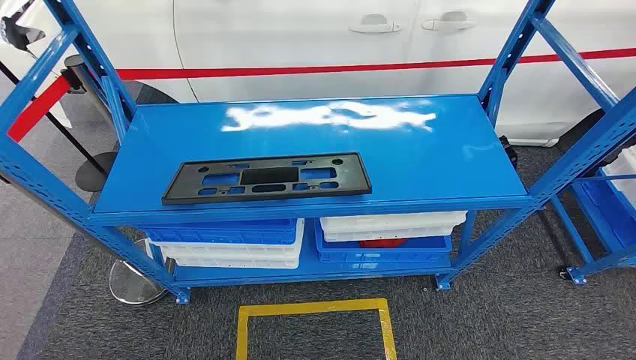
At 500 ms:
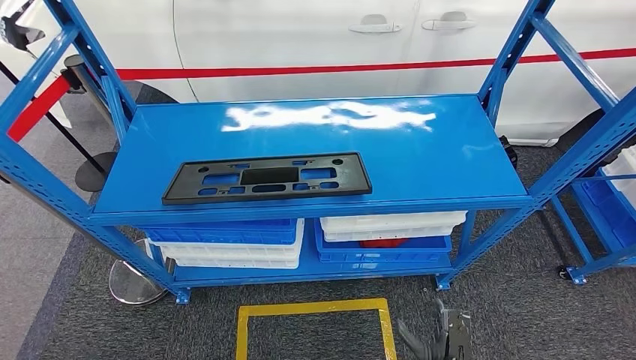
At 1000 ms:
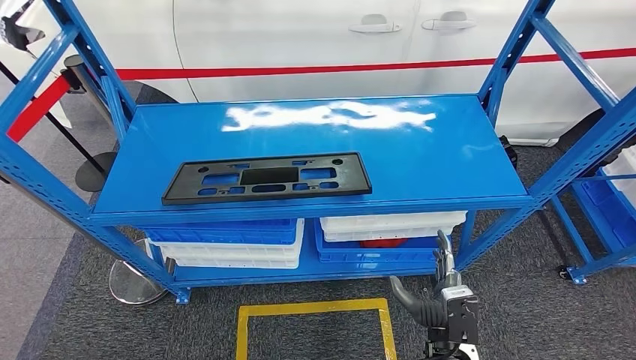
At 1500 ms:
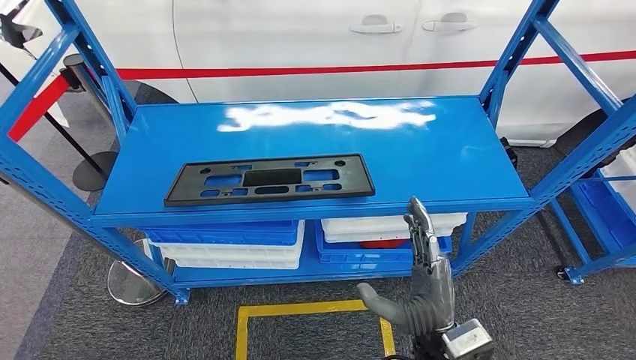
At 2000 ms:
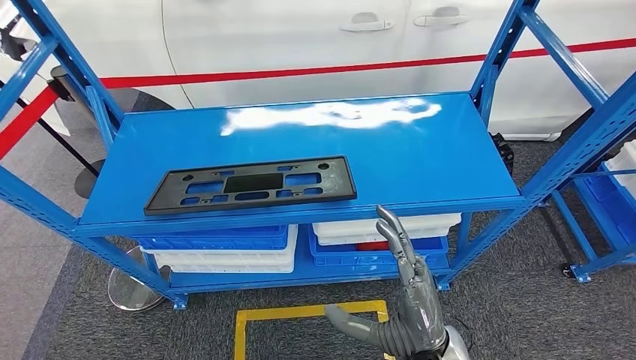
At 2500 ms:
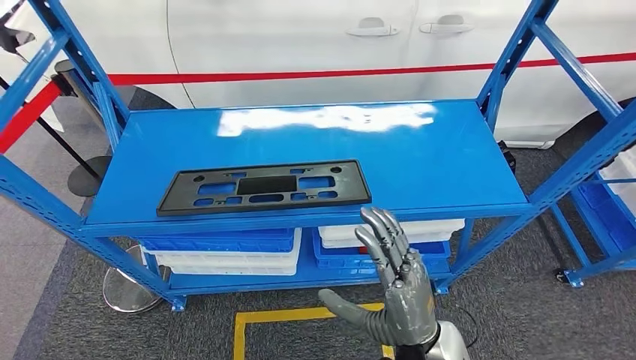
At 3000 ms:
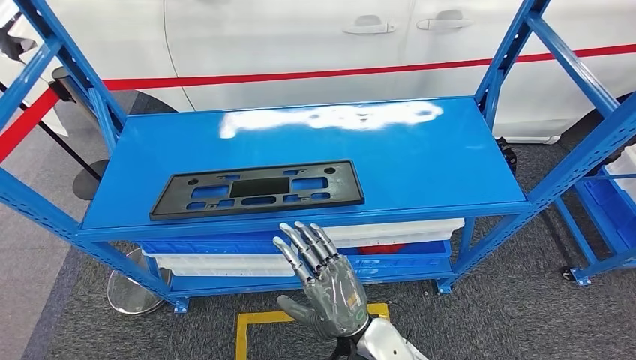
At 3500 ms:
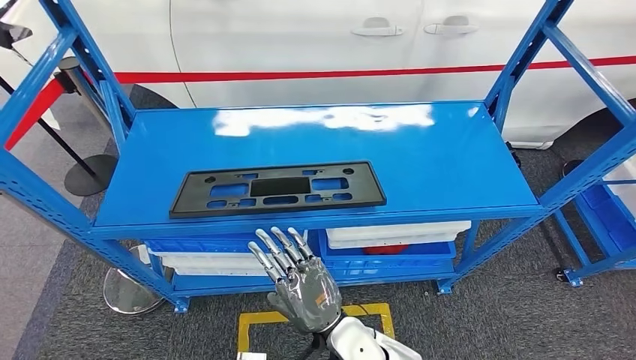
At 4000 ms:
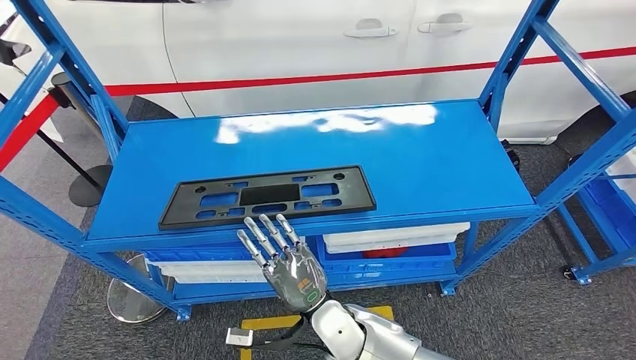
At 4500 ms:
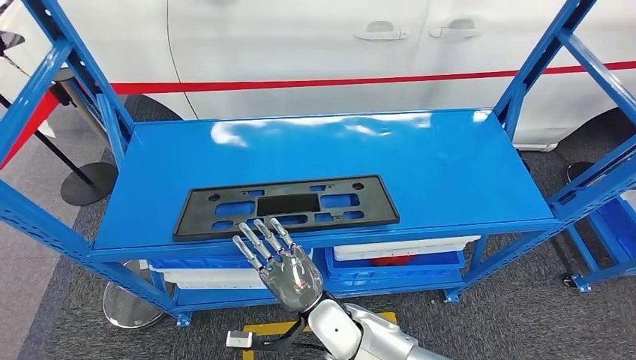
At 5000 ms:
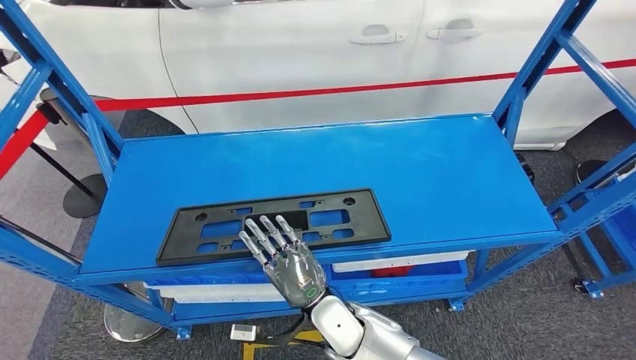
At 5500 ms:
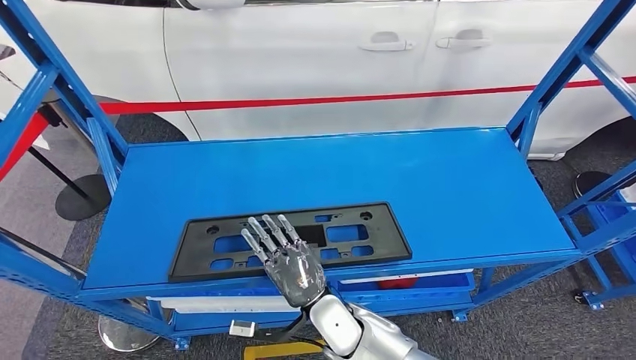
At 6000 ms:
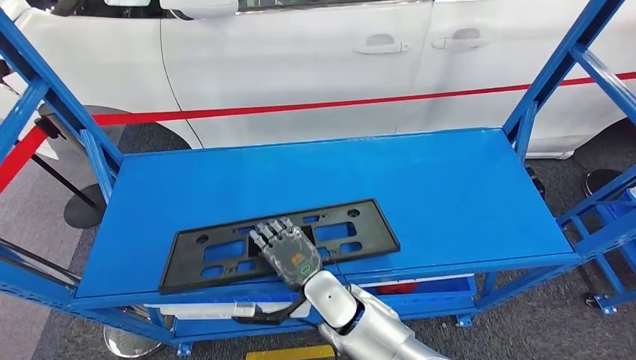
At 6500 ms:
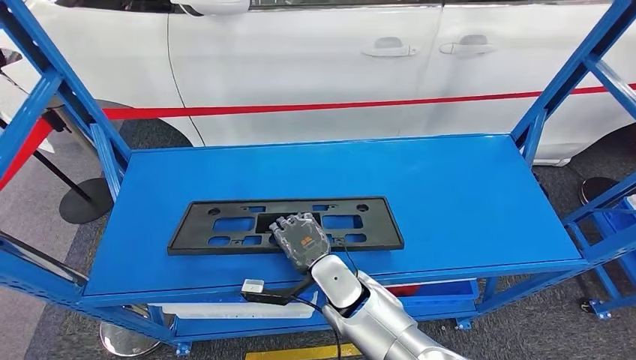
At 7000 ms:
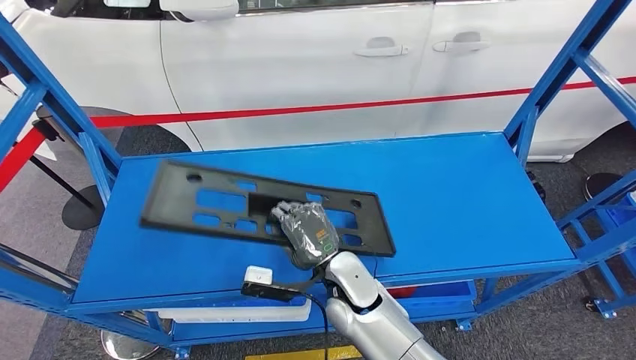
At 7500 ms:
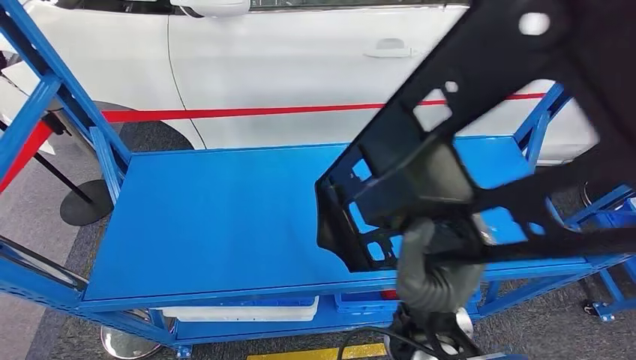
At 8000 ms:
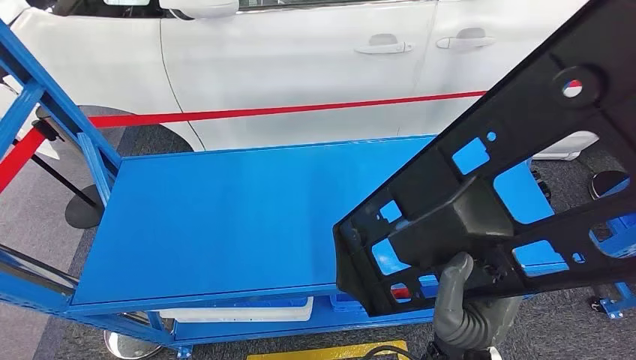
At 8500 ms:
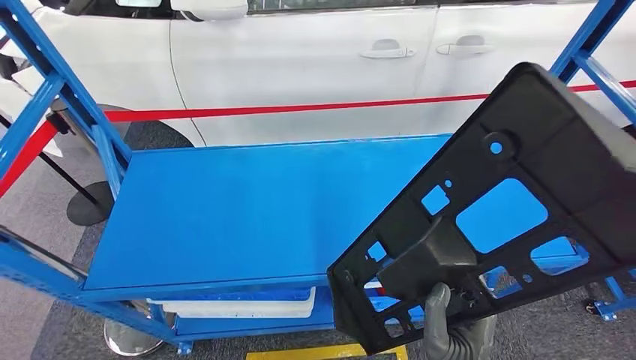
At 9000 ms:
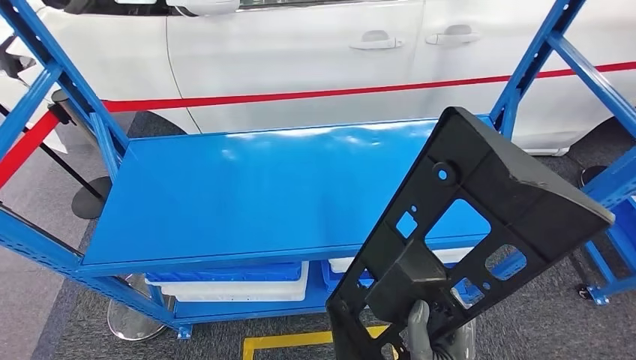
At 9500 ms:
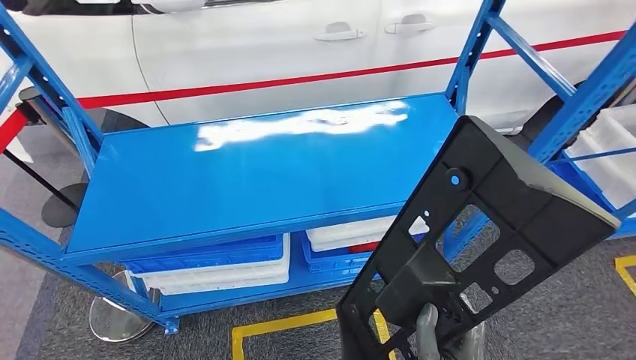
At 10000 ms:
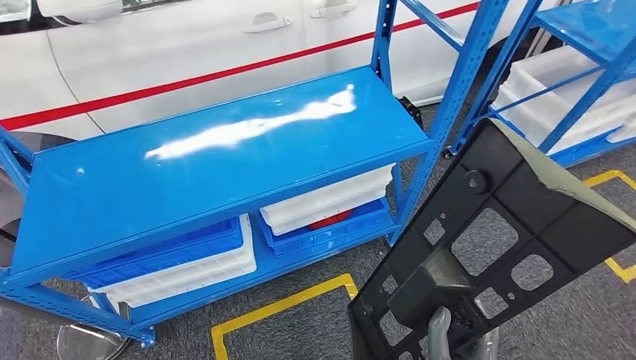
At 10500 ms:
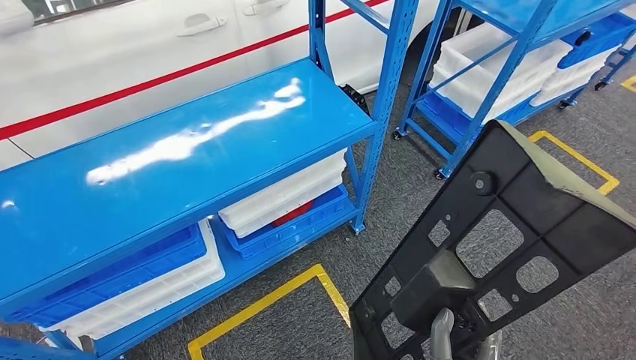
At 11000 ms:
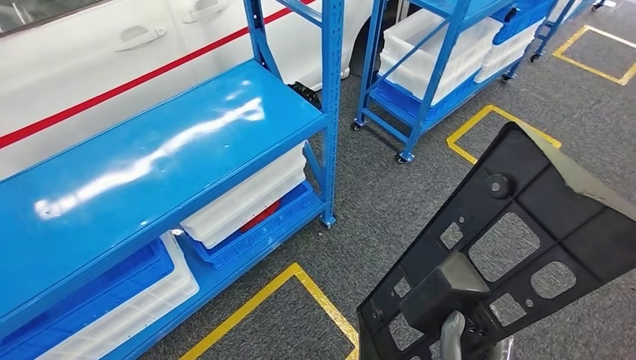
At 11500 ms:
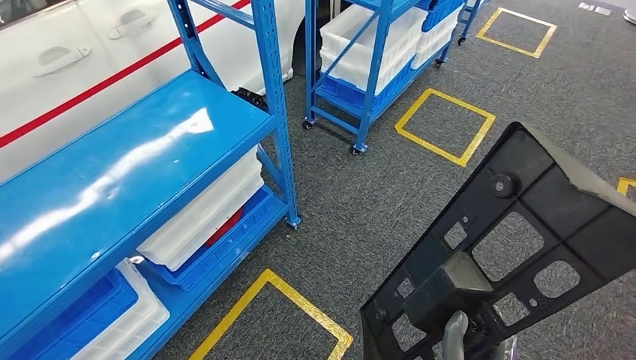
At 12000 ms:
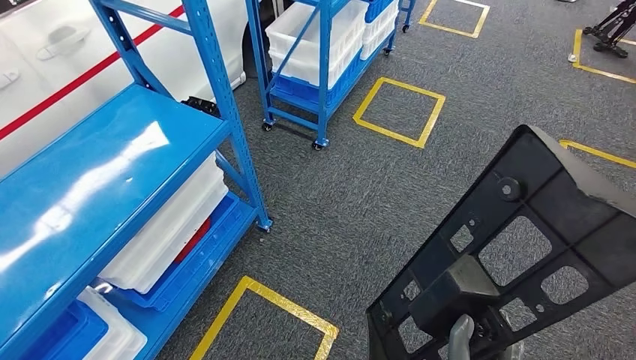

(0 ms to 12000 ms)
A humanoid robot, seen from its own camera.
Step, 0 ms - 7500 ms: Pick up the large material from the shelf.

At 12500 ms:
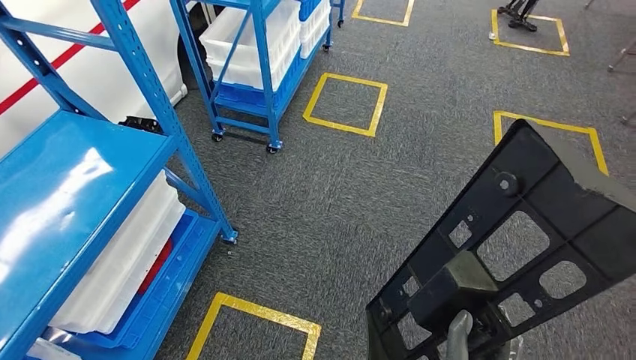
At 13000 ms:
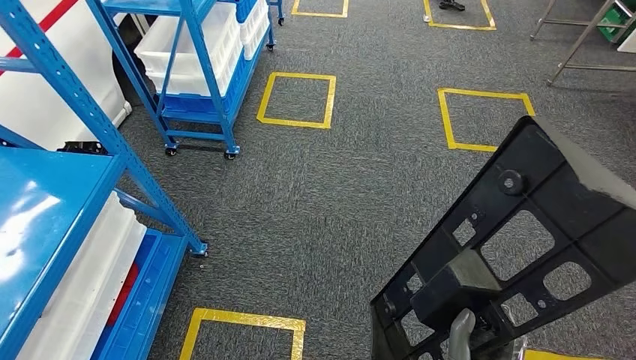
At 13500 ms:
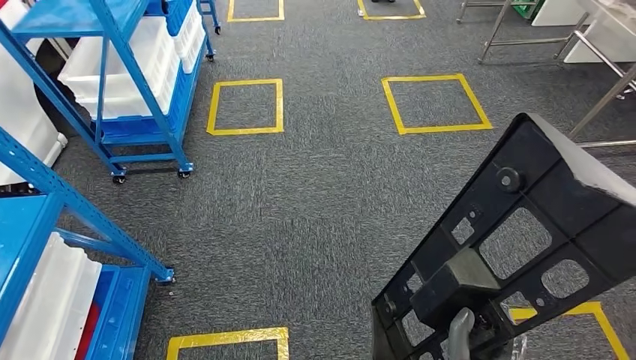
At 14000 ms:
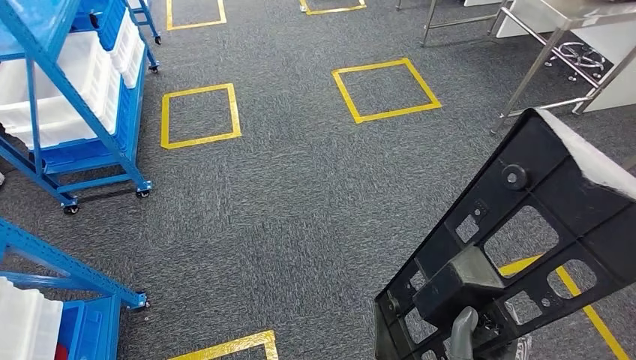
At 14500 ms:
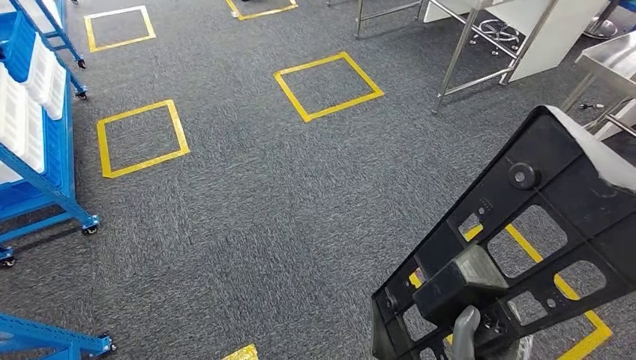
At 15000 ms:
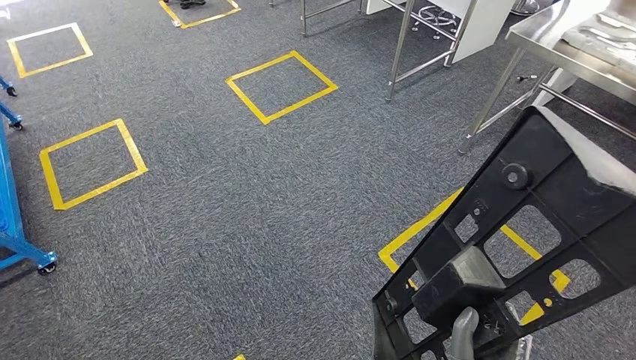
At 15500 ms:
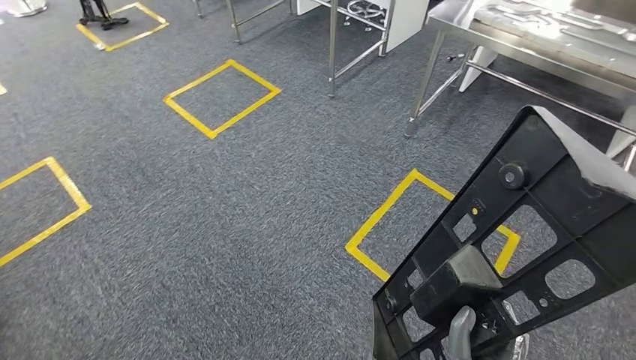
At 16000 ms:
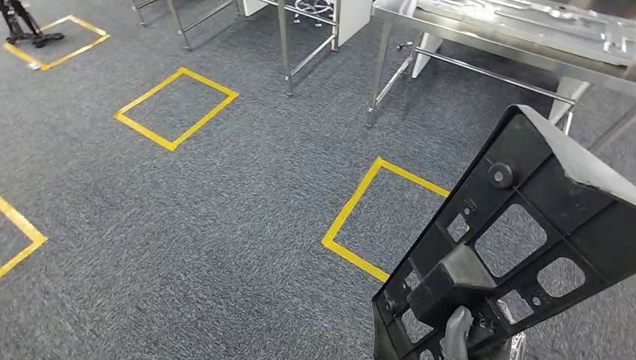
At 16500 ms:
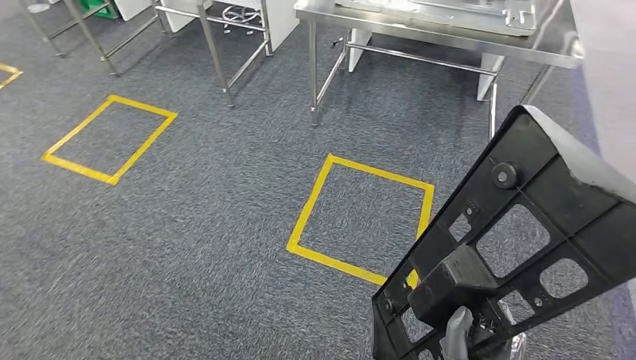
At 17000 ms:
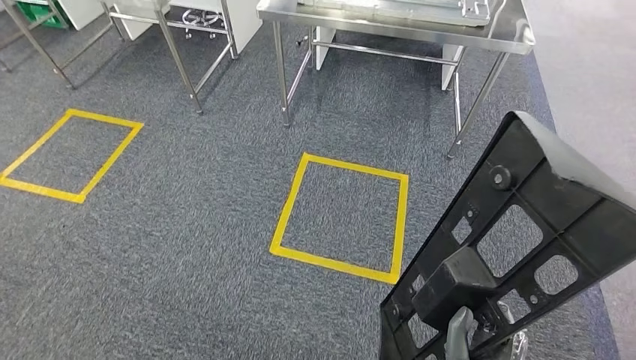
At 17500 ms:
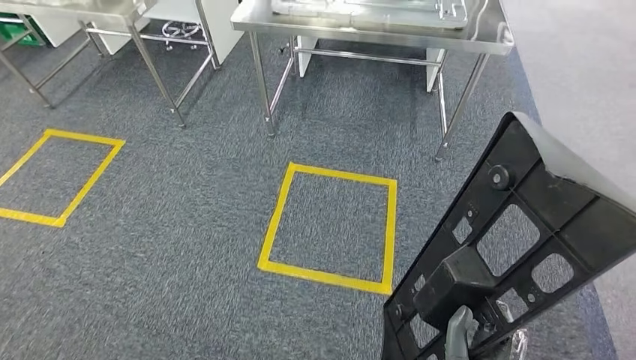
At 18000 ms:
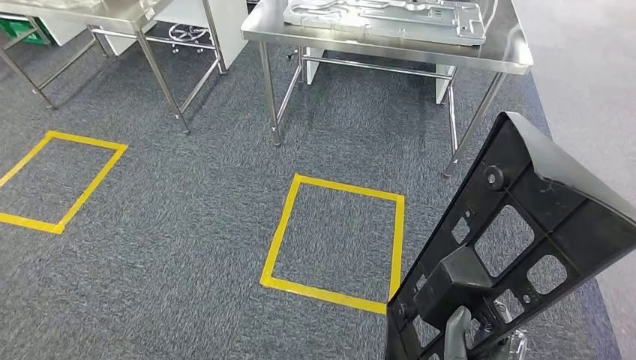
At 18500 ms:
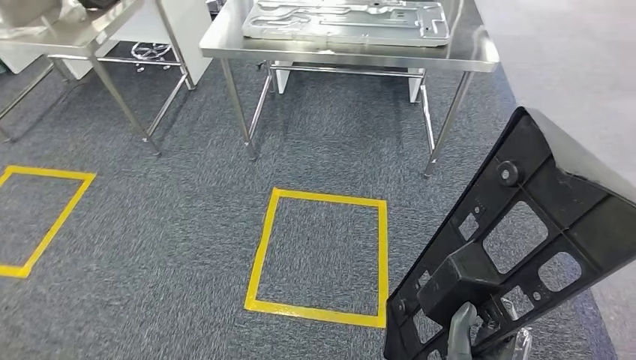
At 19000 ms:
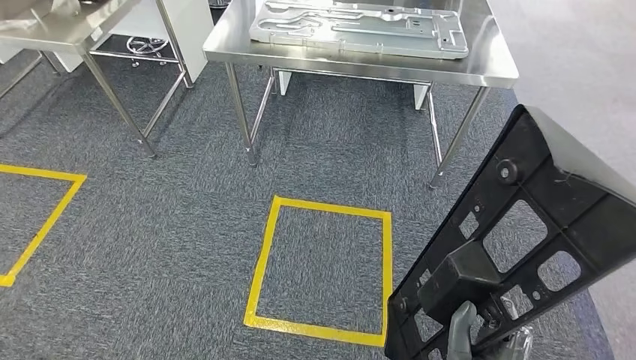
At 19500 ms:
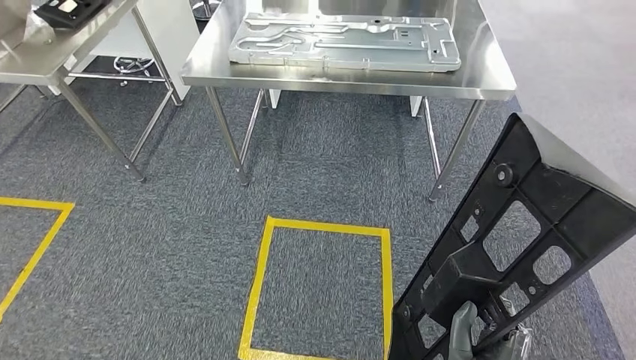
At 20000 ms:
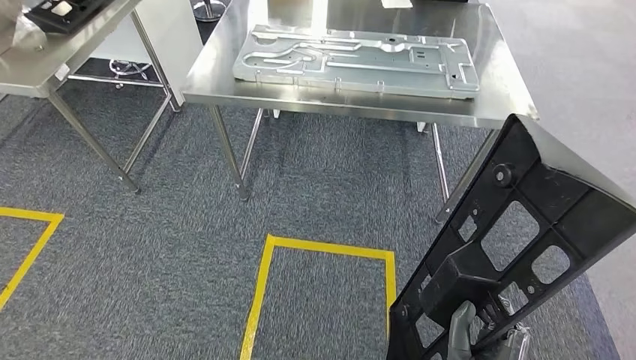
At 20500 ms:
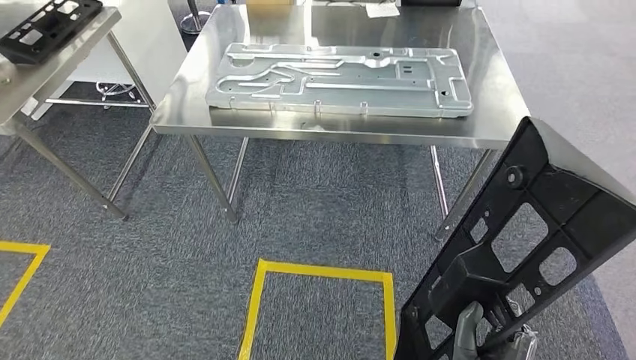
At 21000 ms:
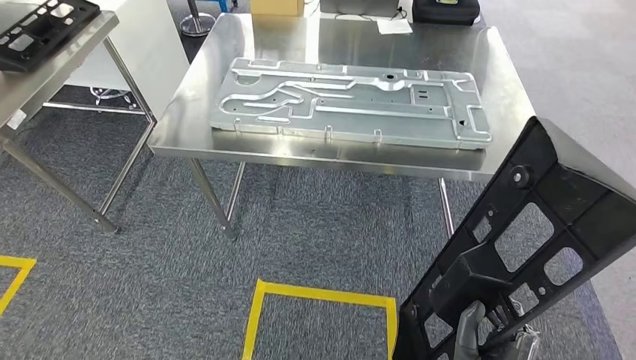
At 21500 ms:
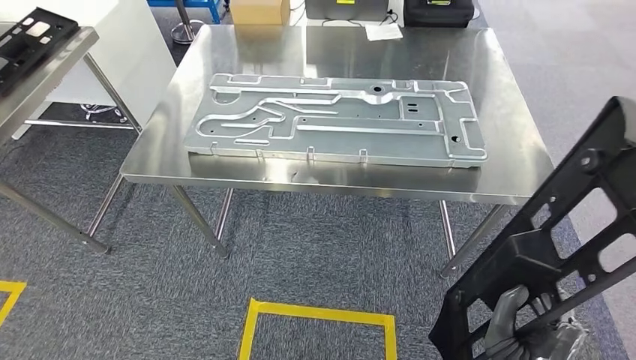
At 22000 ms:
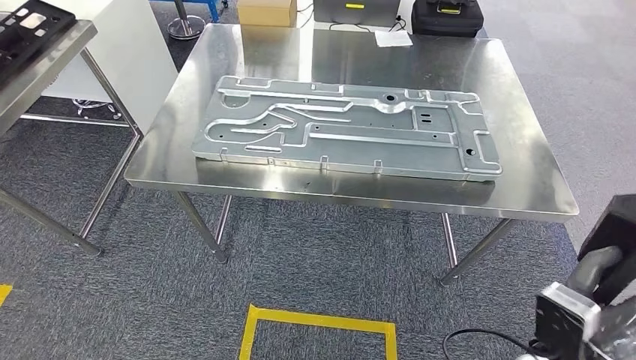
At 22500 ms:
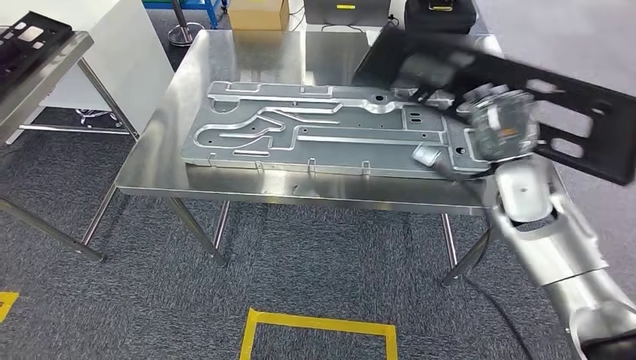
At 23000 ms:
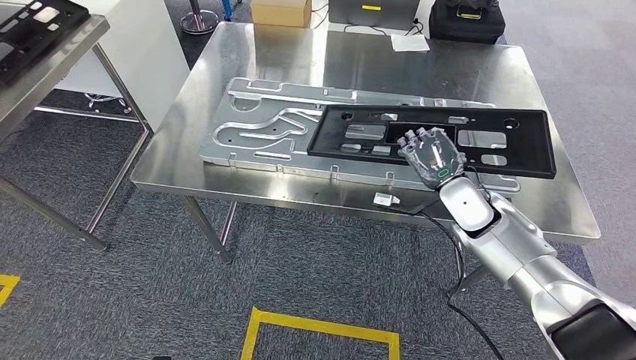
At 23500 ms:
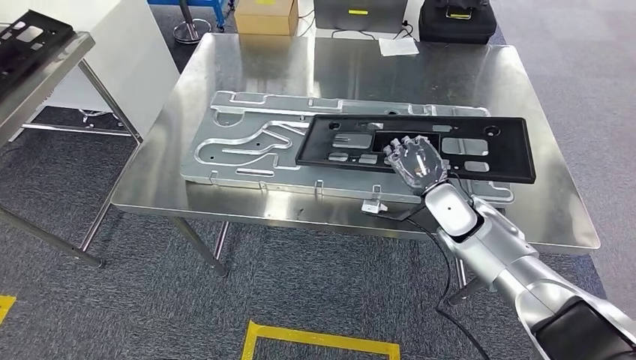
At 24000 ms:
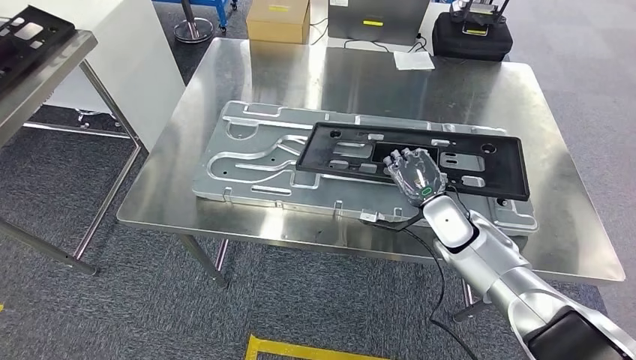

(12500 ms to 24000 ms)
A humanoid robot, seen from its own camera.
Step, 12500 ms - 23000 ms: Move the large material to the front of the workbench.
